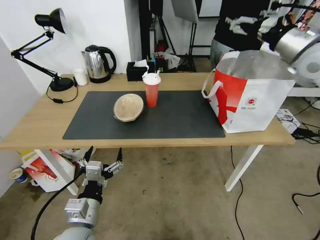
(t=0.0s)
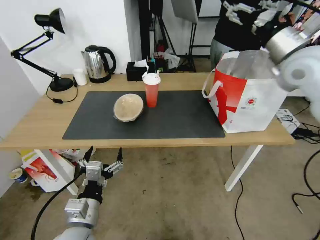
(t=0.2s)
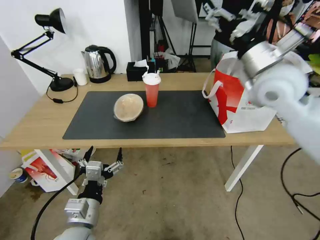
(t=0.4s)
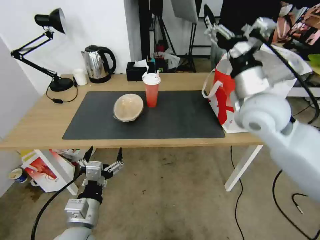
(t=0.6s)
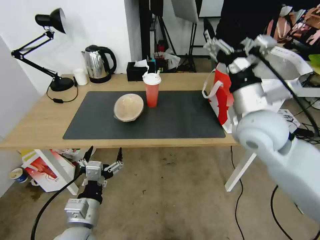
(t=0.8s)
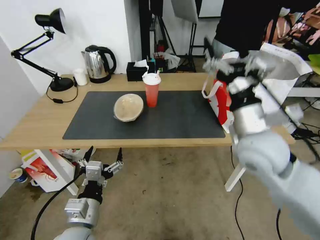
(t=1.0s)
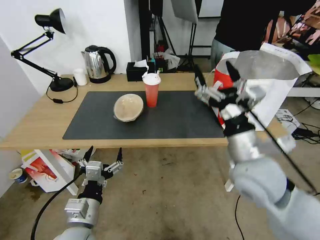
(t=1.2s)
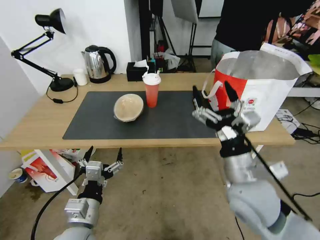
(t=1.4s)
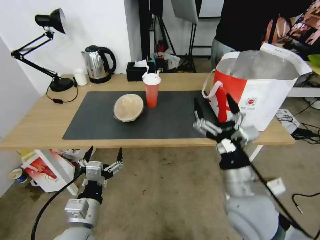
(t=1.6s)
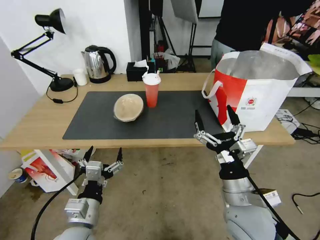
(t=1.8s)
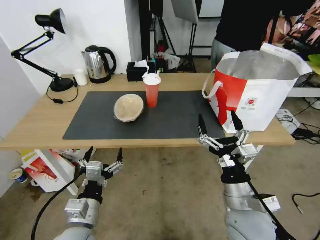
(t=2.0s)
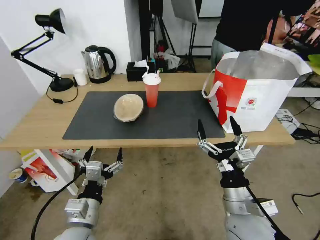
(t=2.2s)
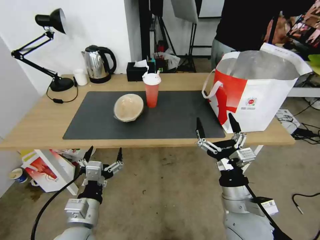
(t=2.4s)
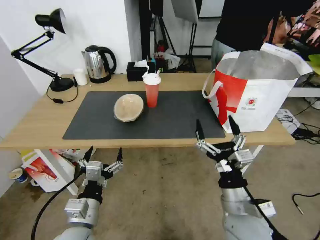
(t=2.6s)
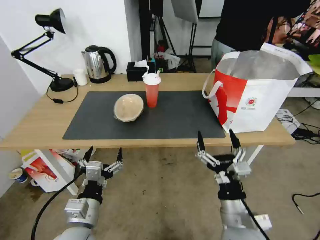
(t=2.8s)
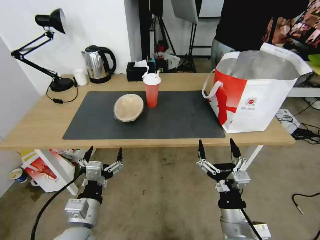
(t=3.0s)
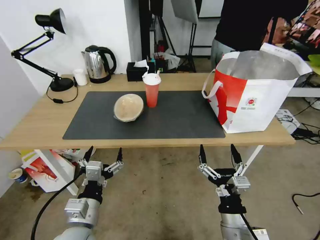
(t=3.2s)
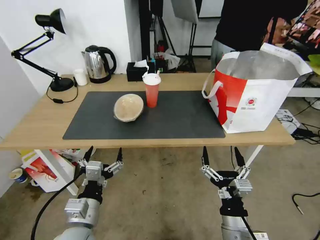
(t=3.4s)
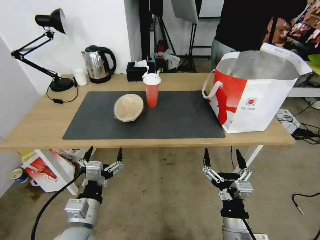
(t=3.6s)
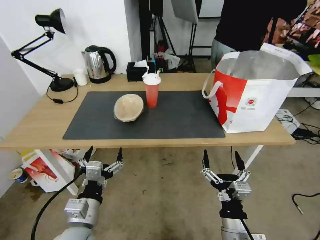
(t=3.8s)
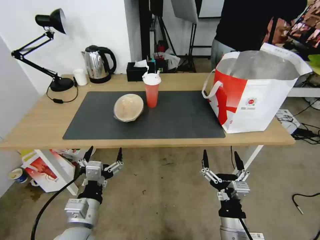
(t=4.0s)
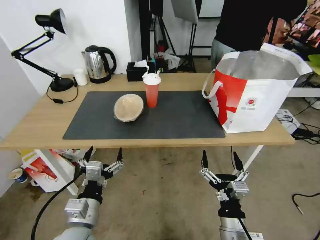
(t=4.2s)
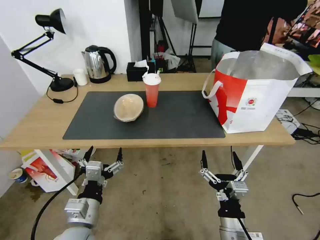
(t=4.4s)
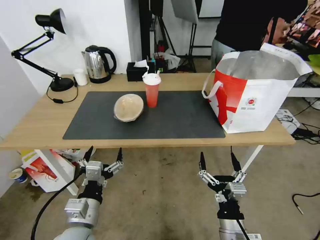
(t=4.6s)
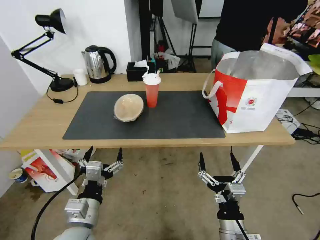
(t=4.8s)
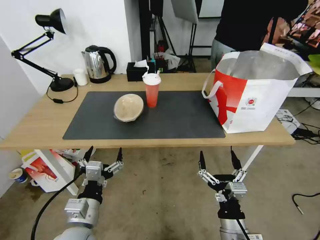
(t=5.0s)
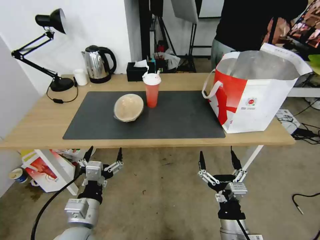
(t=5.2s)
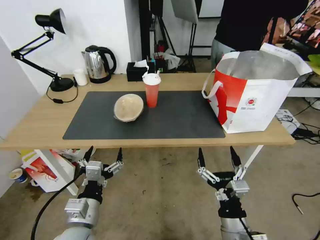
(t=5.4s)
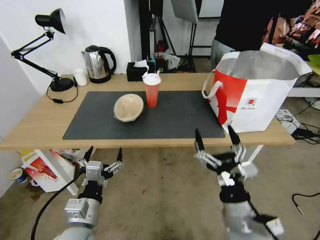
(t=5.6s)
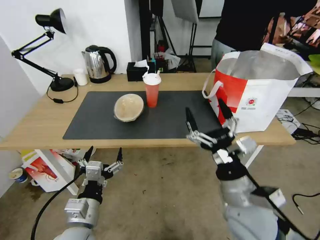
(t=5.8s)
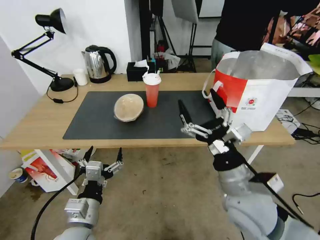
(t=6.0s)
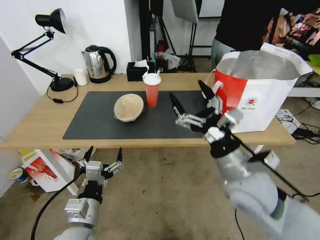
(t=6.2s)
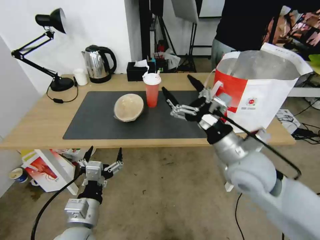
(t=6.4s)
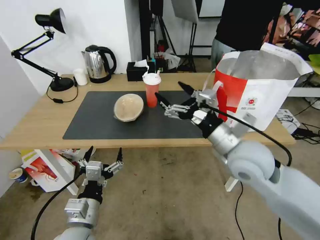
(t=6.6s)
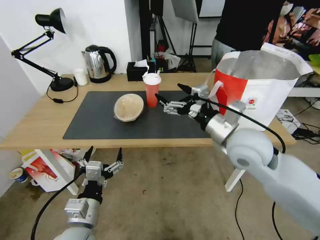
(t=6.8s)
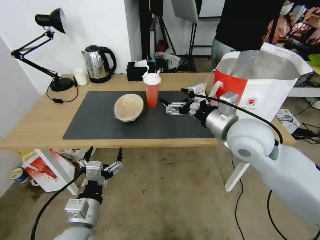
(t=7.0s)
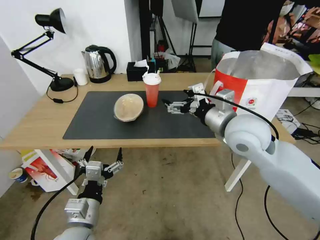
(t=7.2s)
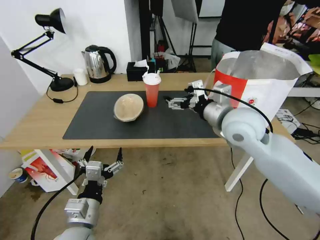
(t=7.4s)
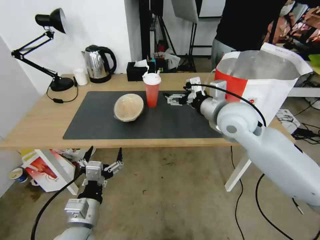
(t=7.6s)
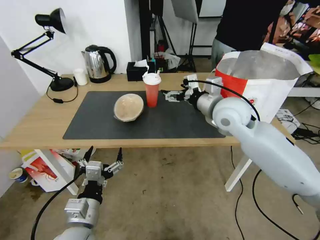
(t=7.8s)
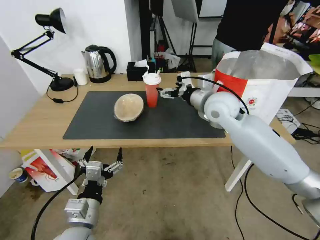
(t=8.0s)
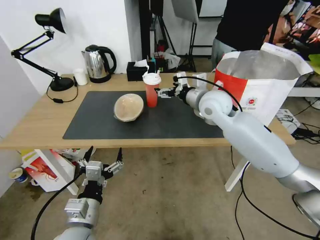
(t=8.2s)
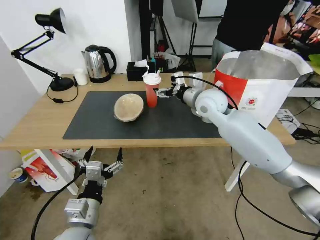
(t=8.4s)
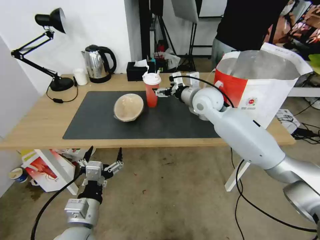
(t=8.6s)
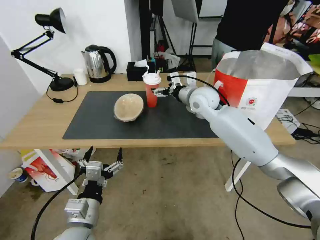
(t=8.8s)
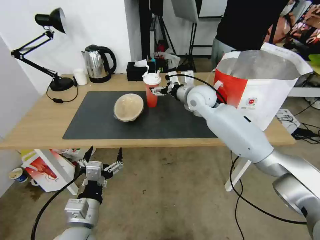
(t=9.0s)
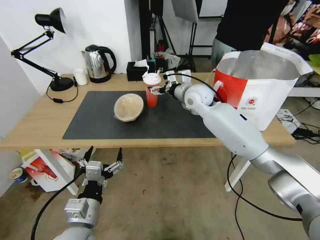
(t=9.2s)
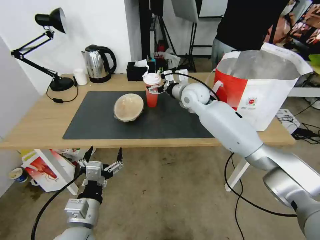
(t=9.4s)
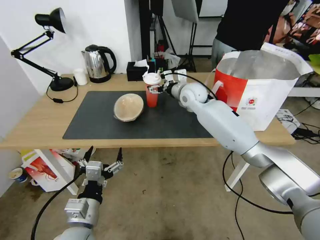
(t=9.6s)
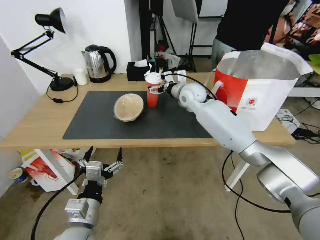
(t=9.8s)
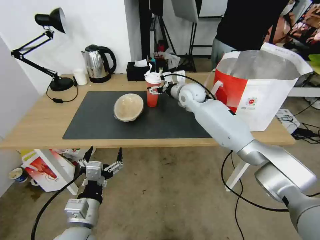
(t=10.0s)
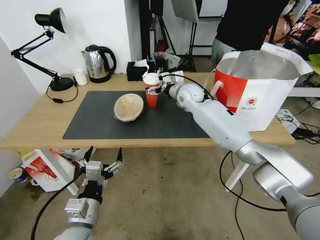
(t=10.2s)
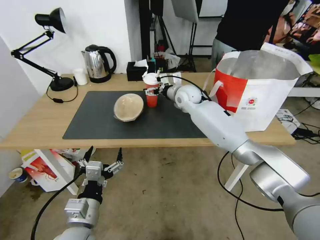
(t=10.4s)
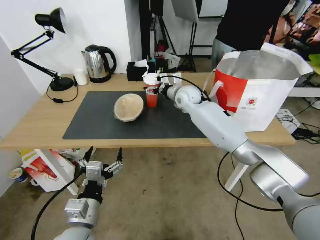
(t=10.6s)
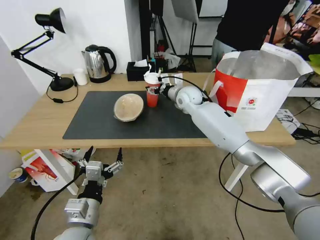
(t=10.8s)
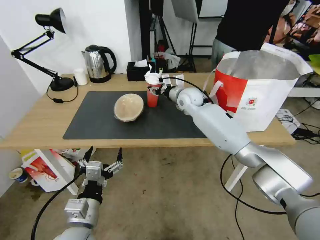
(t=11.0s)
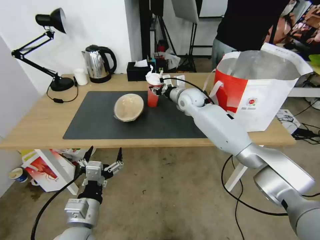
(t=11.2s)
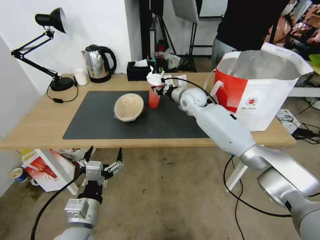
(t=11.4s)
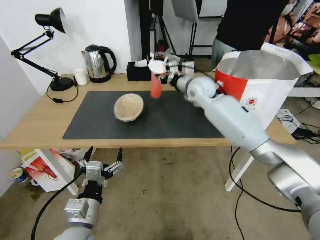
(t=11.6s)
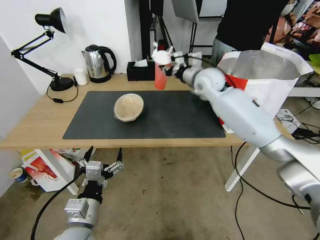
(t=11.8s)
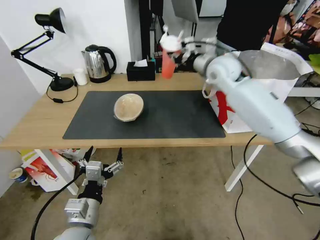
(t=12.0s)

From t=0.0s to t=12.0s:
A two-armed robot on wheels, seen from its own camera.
Task of the whole recording: Pick up the trash from the table and place it into the takeout bag.
From t=0.0s to t=1.6s: The right gripper travels backward, downward and to the left by some 35 cm.
From t=1.6s to t=3.0s: The right gripper is displaced downward and backward by some 15 cm.
From t=3.0s to t=4.4s: There are only small adjustments of the grippers.
From t=4.4s to t=6.0s: The right gripper moves upward and forward, some 15 cm.
From t=6.0s to t=7.6s: The right gripper goes some 20 cm forward and upward.
From t=7.6s to t=9.0s: The right gripper is displaced forward and to the left by roughly 15 cm.
From t=9.0s to t=10.4s: The right gripper moves forward, approximately 5 cm.
From t=10.4s to t=12.0s: The right gripper moves upward and to the right, approximately 15 cm, and closes up.

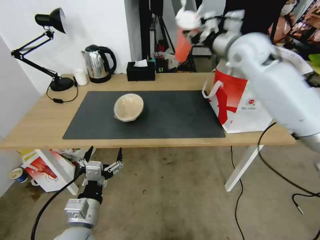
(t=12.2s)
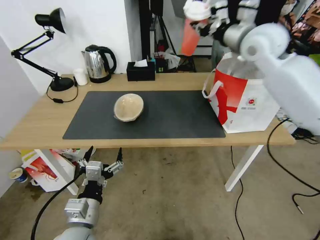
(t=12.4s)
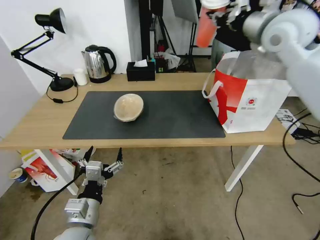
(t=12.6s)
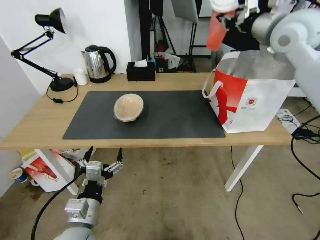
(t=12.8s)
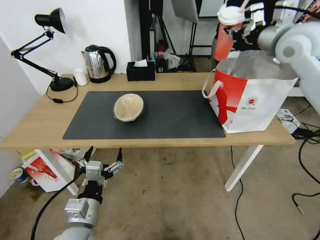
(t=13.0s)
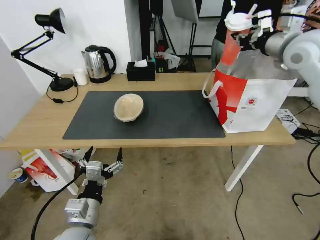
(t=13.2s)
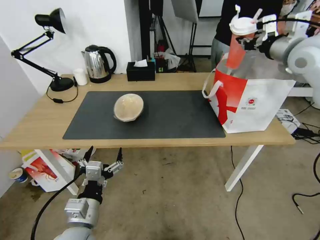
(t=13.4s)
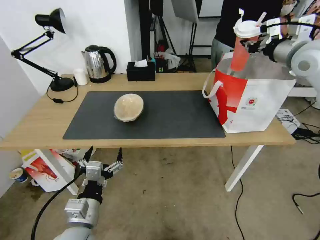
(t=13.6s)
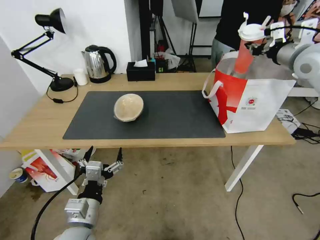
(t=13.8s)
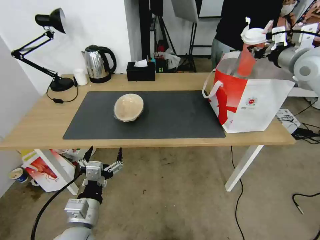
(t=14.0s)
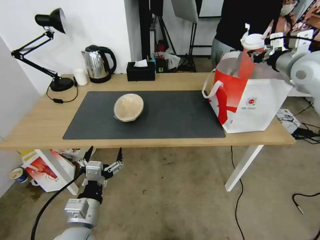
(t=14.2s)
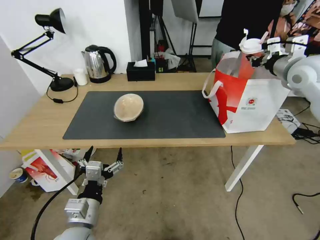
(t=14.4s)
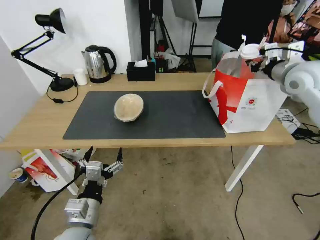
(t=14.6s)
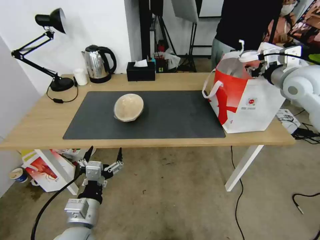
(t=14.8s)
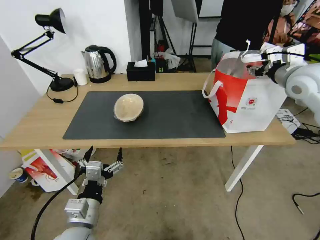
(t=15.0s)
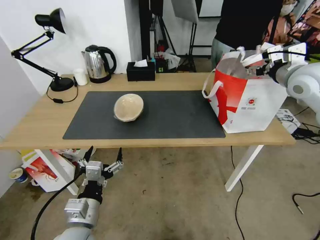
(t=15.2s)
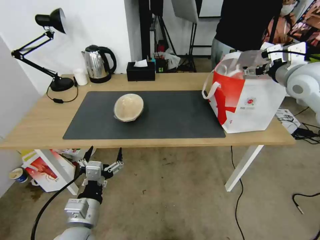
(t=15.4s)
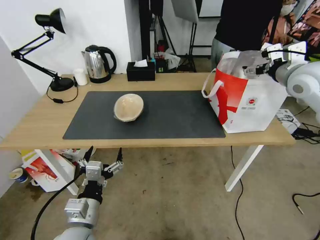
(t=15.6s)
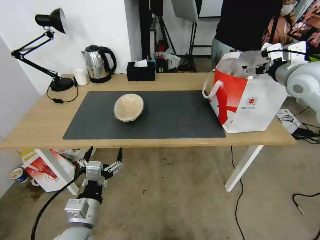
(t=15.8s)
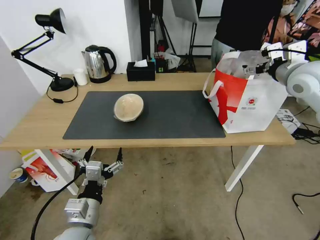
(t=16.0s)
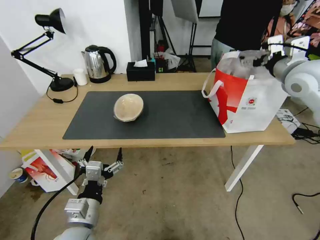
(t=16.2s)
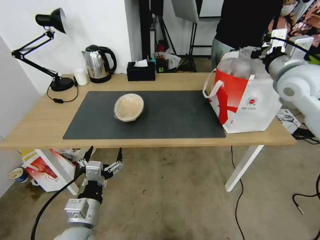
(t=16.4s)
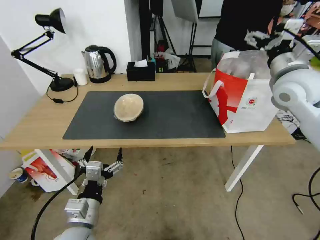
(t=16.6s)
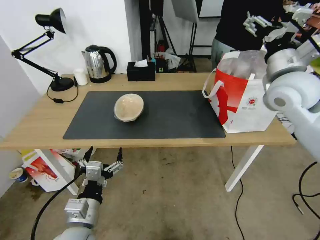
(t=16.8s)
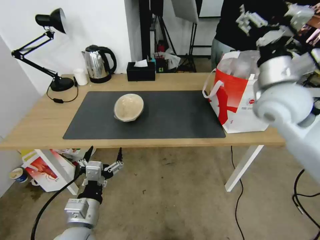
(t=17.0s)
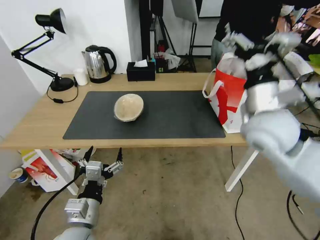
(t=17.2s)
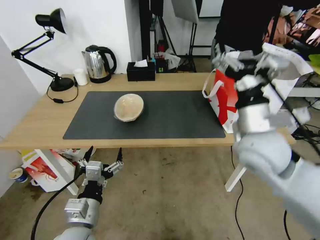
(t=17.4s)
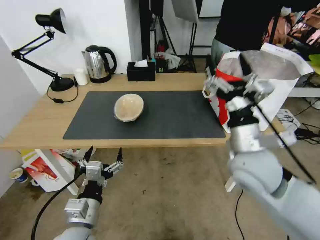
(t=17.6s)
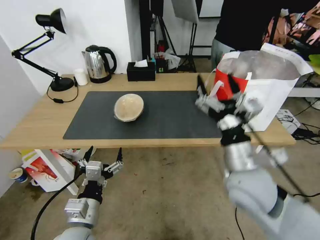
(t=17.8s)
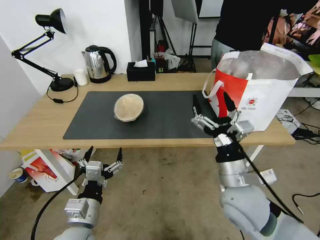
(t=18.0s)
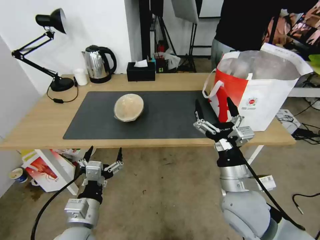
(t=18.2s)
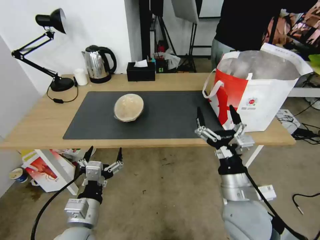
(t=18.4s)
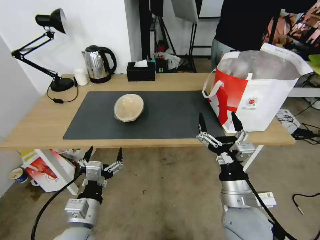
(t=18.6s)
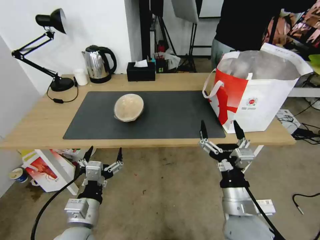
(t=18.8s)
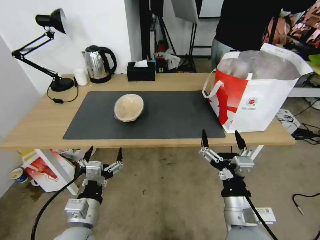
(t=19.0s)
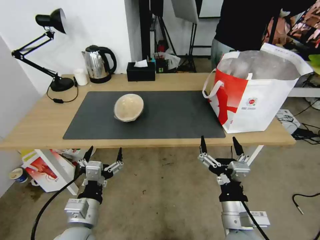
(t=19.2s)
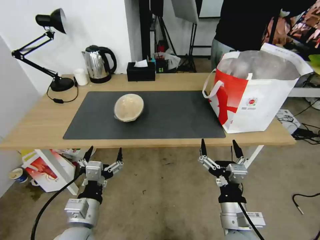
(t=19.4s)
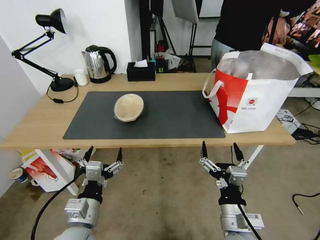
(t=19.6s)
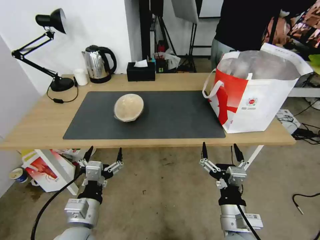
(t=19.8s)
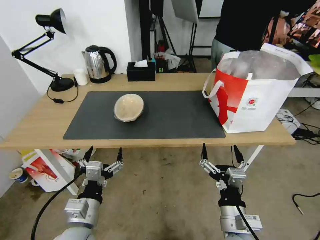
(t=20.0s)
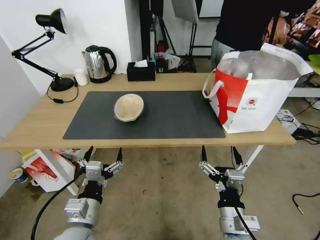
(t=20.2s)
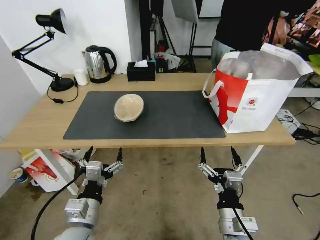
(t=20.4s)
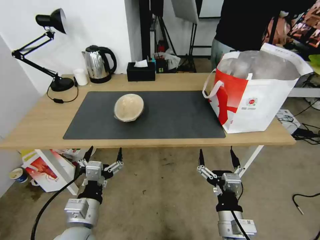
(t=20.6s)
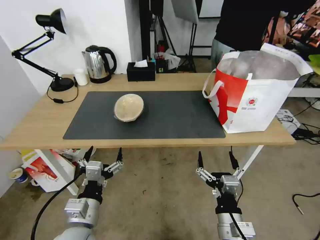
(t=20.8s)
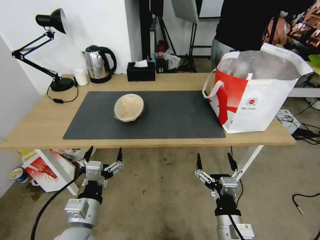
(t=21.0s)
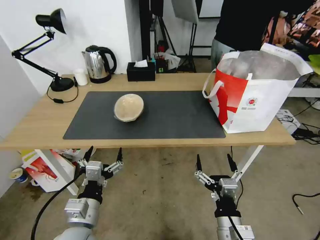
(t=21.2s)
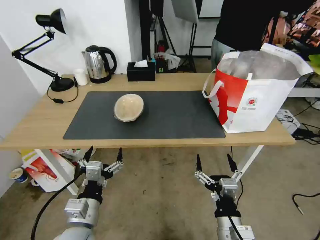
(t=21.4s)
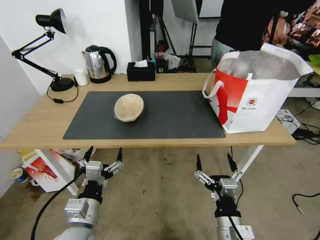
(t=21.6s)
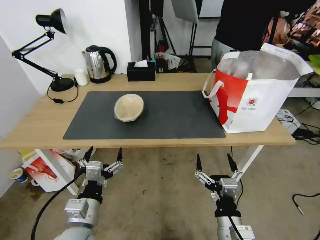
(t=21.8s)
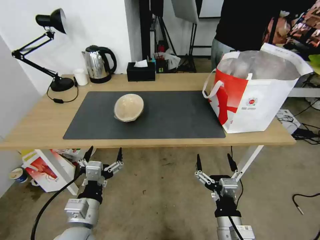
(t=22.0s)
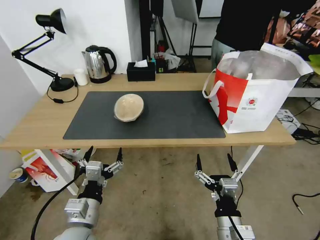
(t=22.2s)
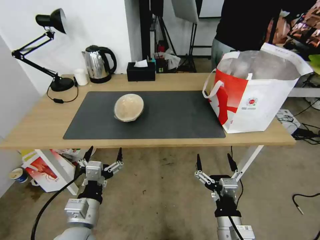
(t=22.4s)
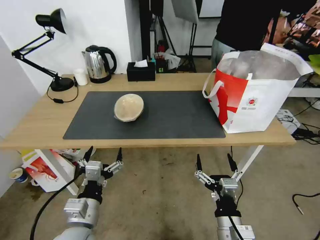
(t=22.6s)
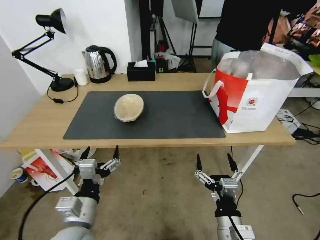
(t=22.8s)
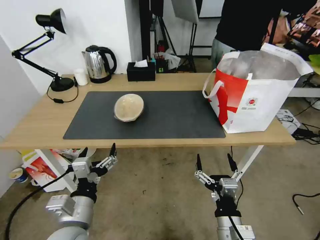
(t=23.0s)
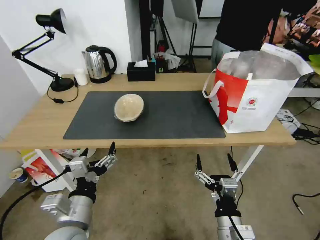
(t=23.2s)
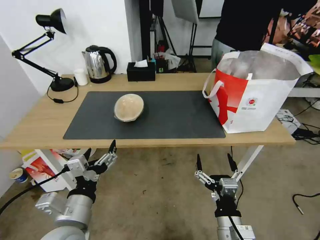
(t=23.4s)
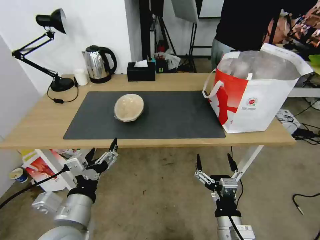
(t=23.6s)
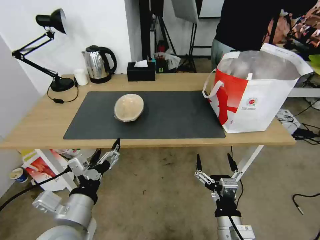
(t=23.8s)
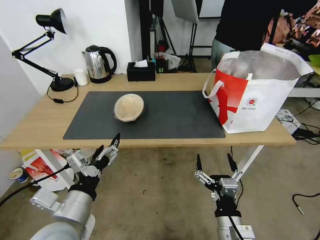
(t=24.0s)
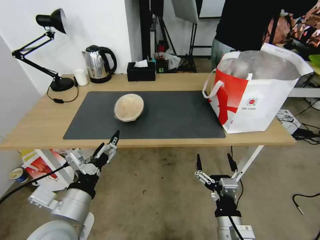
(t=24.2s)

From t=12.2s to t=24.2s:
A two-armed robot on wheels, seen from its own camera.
Task of the whole recording: Pick up the trash from the table and place it into the takeout bag.
From t=12.2s to t=13.8s: The right gripper goes approximately 15 cm to the right.
From t=13.8s to t=15.2s: The right gripper opens up.
From t=15.2s to t=16.6s: The right gripper moves some 5 cm.
From t=16.6s to t=18.2s: The right gripper travels backward, downward and to the left by roughly 35 cm.
From t=18.2s to t=19.8s: The right gripper travels backward and downward by roughly 10 cm.
From t=19.8s to t=21.2s: The grippers stay close to where they were, moving slightly.
From t=21.2s to t=22.6s: Neither gripper changes place.
From t=22.6s to t=24.2s: The left gripper goes roughly 10 cm upward.
